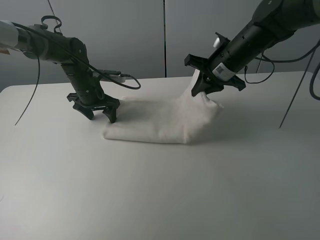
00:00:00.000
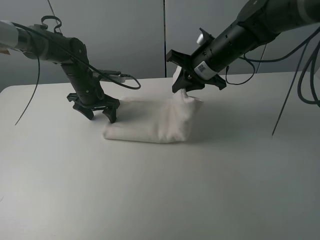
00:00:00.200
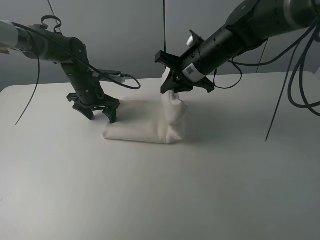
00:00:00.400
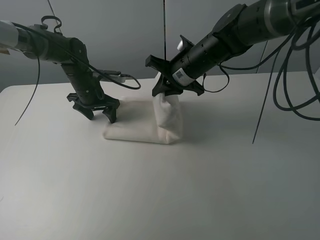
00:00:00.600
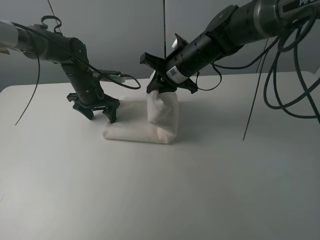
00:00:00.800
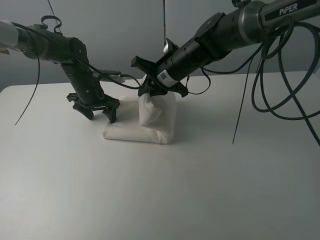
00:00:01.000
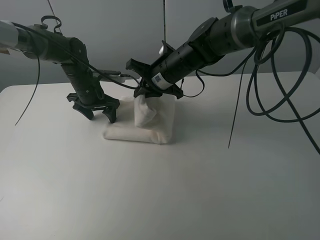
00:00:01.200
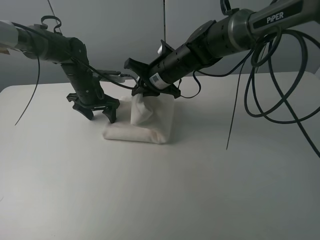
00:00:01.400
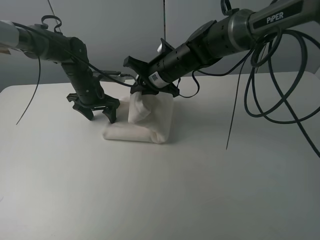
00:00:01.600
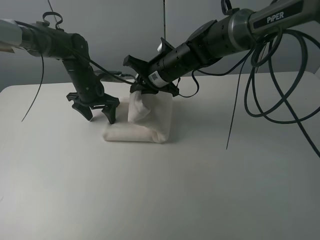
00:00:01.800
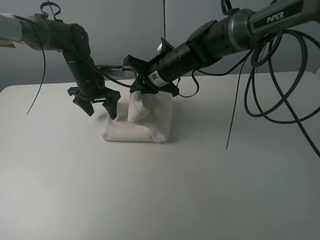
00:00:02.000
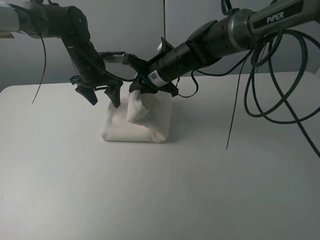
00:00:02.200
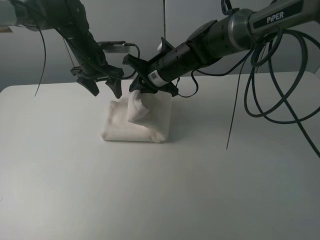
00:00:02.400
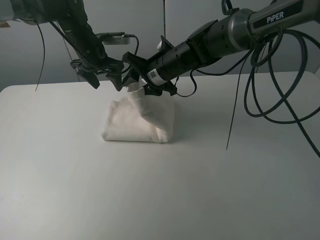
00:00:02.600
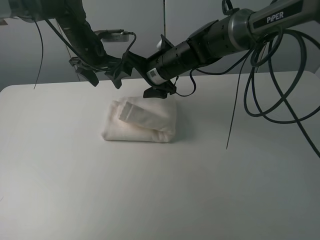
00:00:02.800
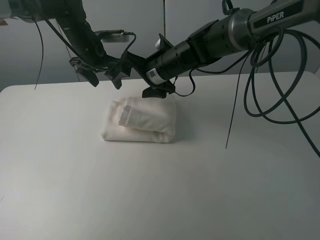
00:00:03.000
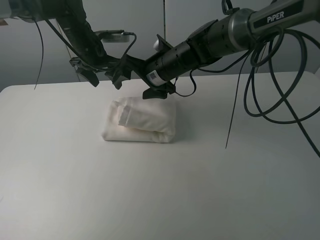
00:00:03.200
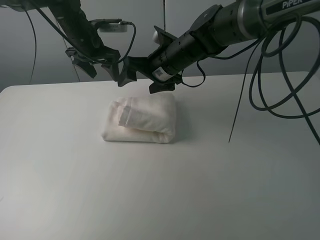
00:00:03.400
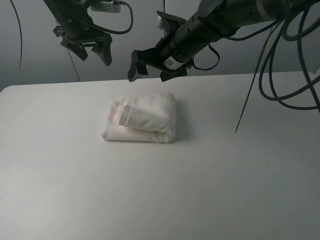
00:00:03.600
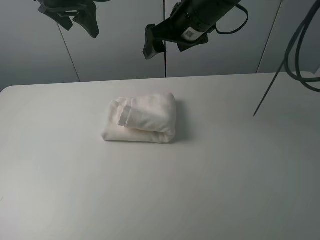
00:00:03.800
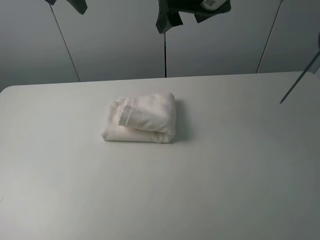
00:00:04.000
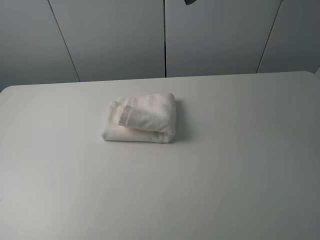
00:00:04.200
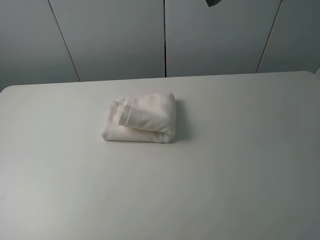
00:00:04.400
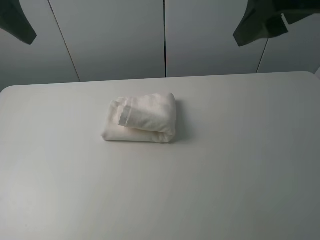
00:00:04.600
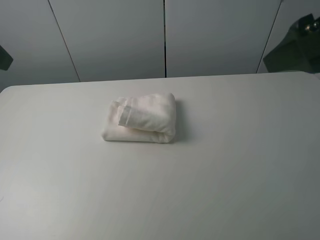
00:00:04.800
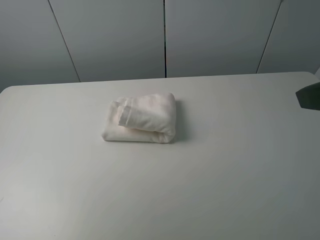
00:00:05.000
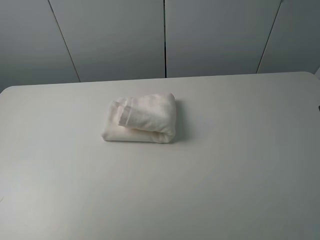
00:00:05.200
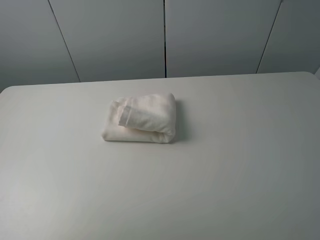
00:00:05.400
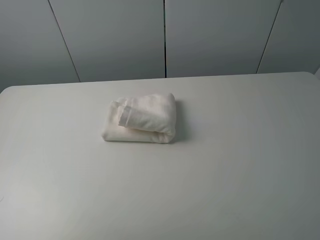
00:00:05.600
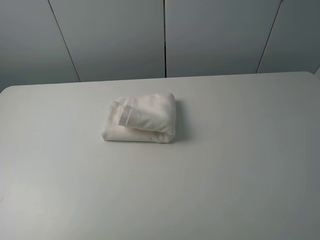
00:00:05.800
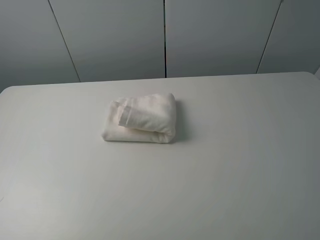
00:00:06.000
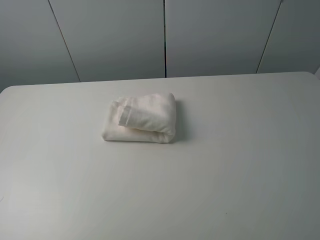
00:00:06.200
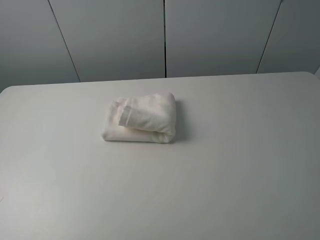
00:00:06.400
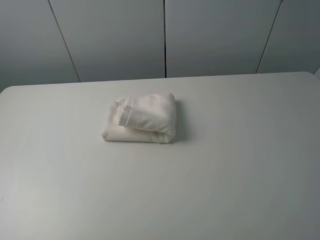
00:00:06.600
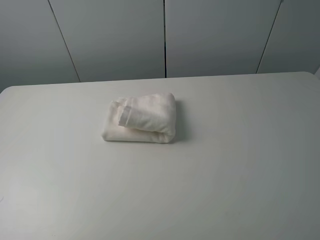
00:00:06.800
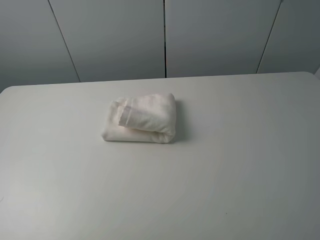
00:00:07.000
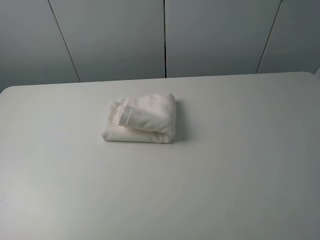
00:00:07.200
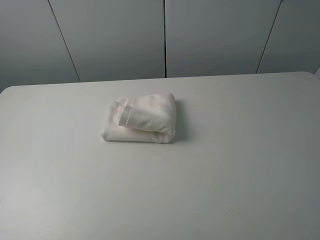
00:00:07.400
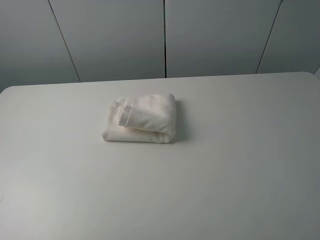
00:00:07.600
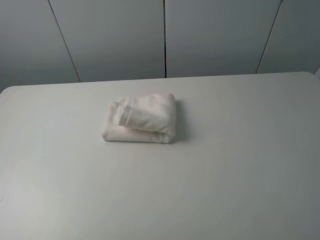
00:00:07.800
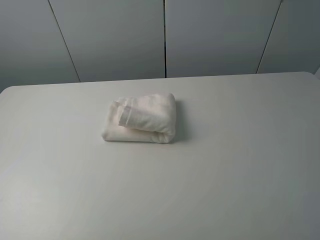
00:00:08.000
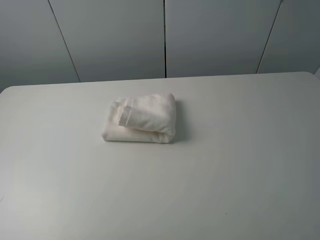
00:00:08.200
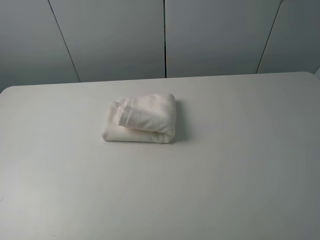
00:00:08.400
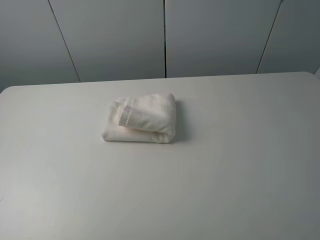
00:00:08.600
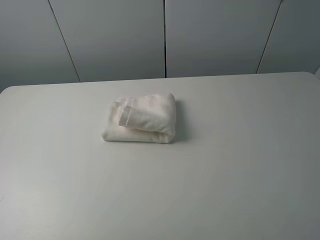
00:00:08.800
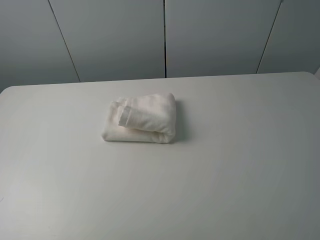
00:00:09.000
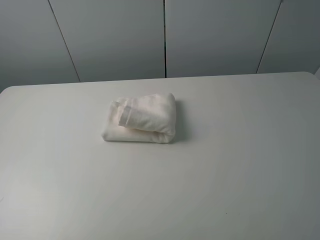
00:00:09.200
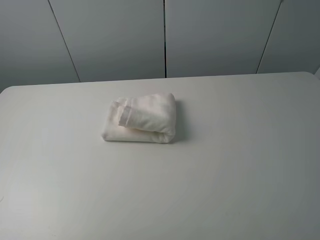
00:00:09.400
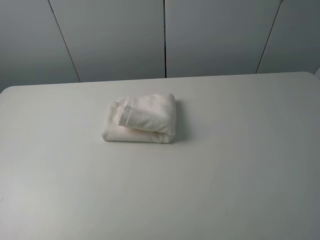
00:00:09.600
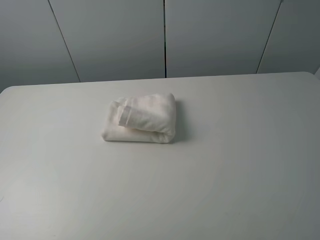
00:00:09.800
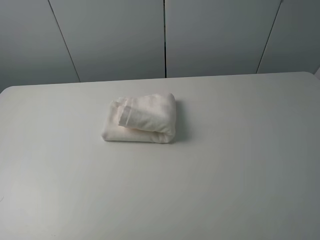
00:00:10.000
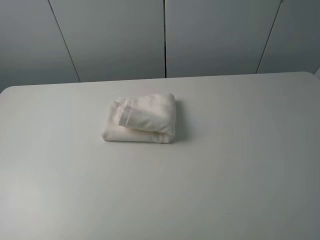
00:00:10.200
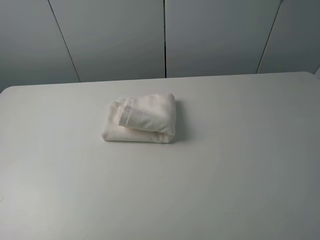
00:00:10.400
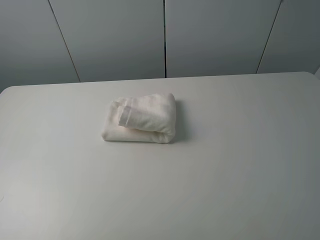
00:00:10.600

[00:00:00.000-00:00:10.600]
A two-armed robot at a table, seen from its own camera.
Task of the whole recording: fold the towels on the table.
Step, 00:00:00.000 to 00:00:02.800: Fold the white towel from right to left with right gripper.
00:00:00.000 to 00:00:01.600: The right gripper heads to the left, covering approximately 10 cm.
00:00:01.600 to 00:00:03.000: The left gripper goes approximately 10 cm upward. Meanwhile the right gripper opens up.
00:00:03.000 to 00:00:04.600: The right gripper is displaced upward, backward and to the right by approximately 35 cm. The left gripper is displaced backward and upward by roughly 30 cm.
00:00:04.600 to 00:00:06.000: The left gripper shifts some 25 cm backward and downward, while the right gripper travels backward, to the right and downward by approximately 25 cm.
00:00:07.600 to 00:00:10.600: Neither gripper changes place.
